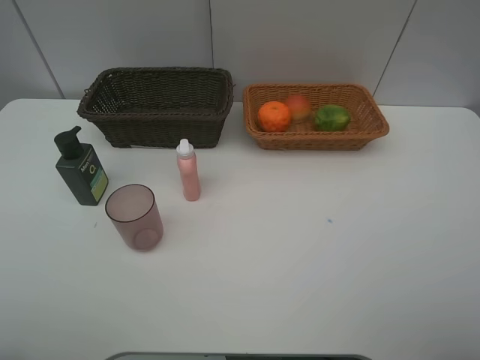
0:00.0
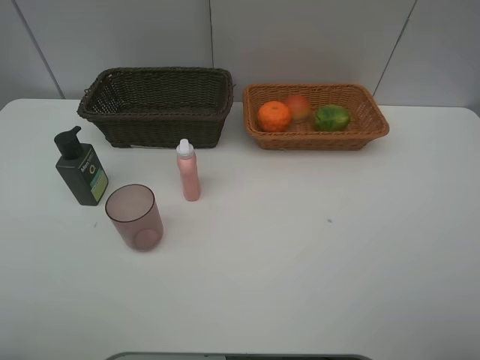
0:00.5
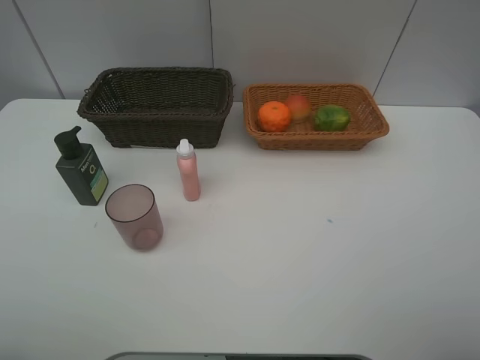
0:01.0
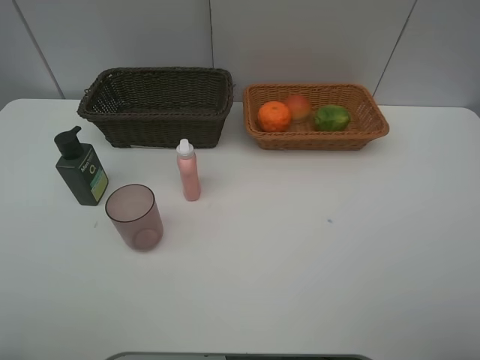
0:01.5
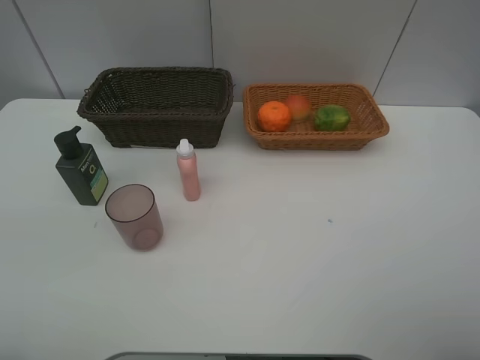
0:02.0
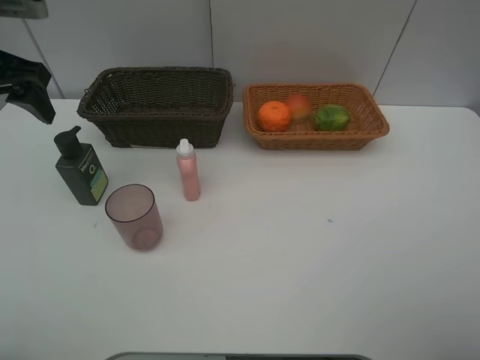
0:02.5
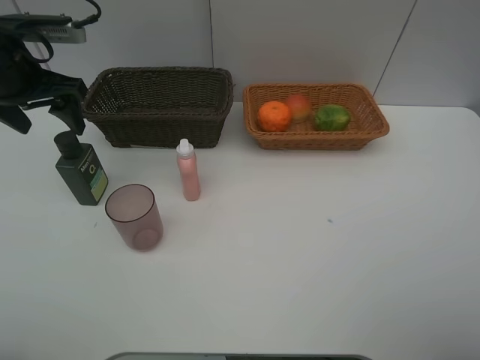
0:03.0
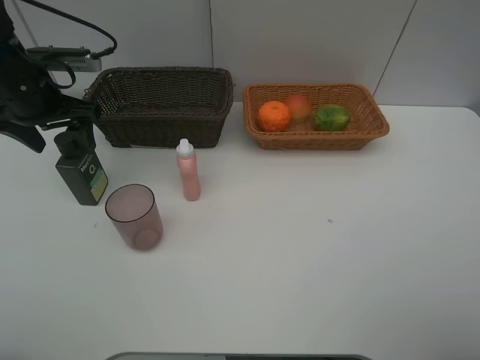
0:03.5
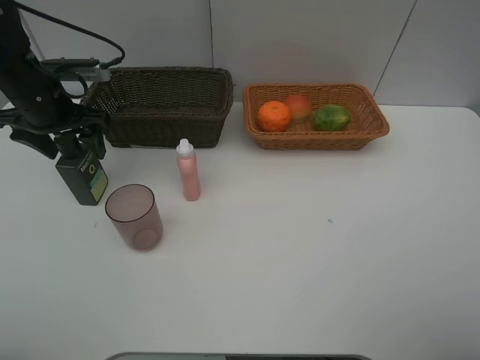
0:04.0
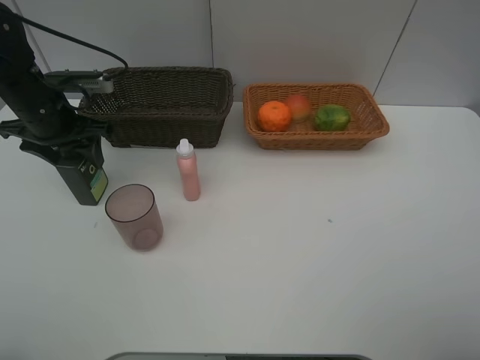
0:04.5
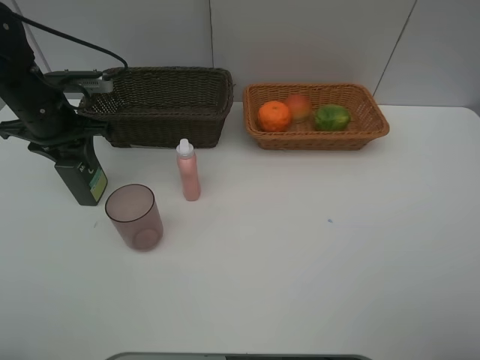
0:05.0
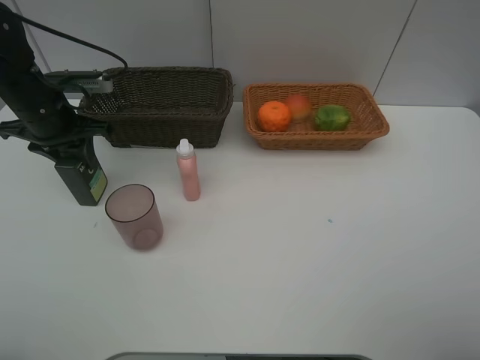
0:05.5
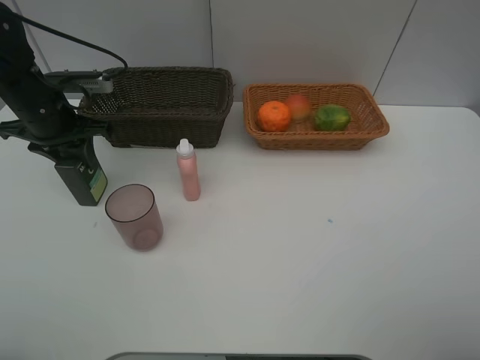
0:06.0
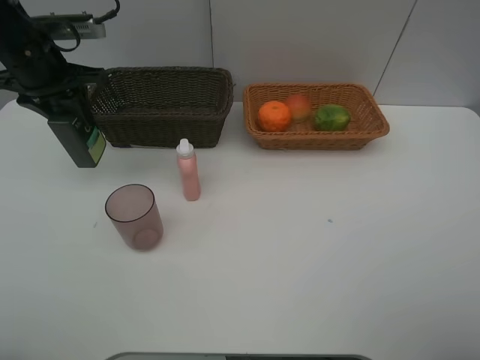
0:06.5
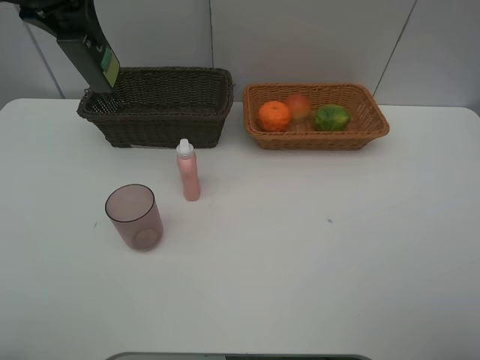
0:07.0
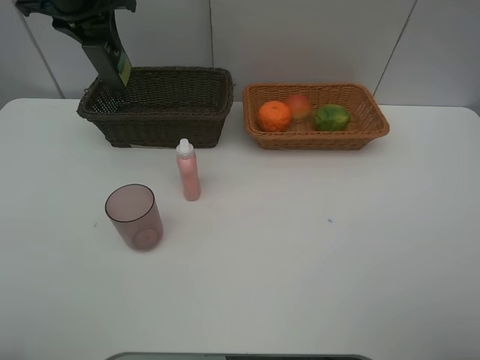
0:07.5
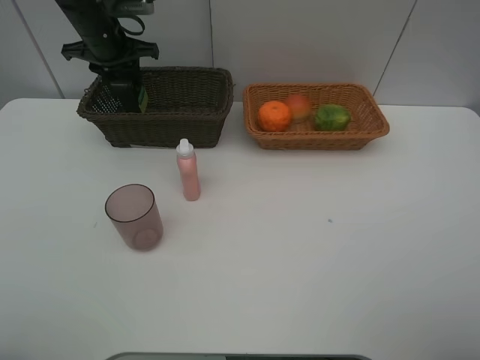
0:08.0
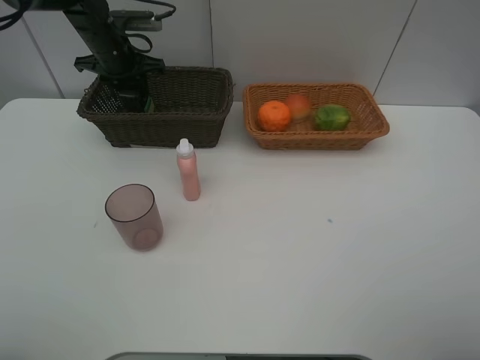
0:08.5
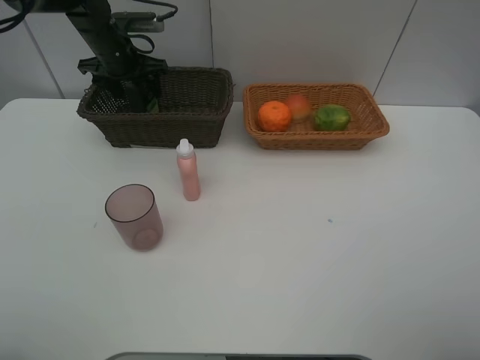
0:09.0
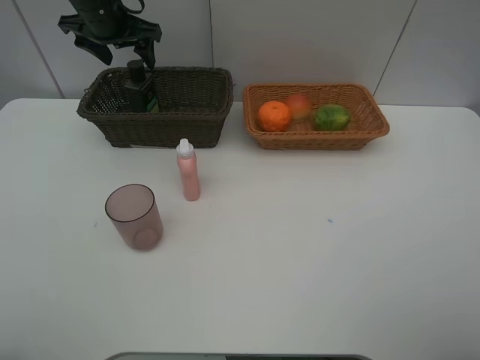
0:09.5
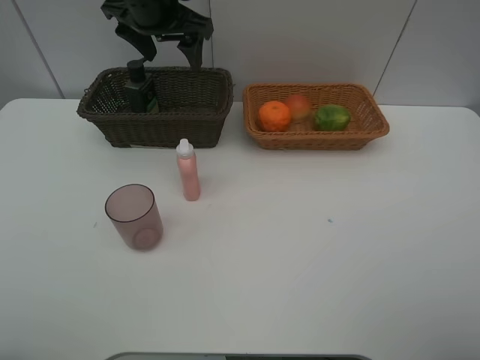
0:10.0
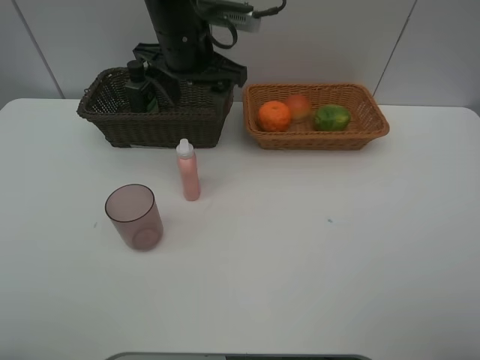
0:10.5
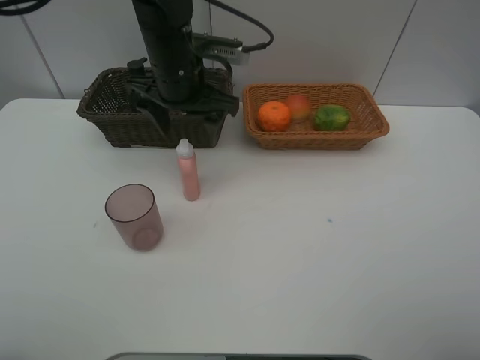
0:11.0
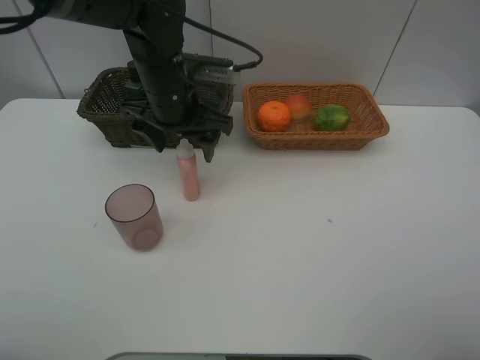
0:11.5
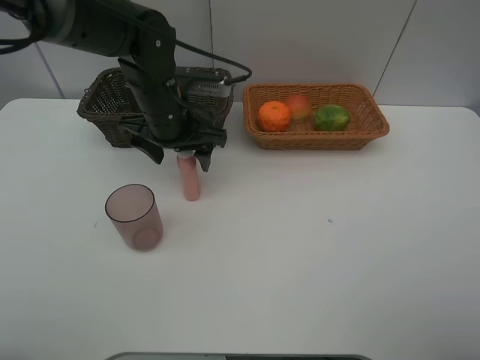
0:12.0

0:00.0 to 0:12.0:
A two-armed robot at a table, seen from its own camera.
Task of the whole recording: place multiple objects separately in different baskets.
0:02.0 to 0:04.0: The left gripper moves forward and downward, roughly 20 cm.
0:04.0 to 0:06.0: The left gripper closes.
0:06.0 to 0:08.0: The left gripper moves forward, some 15 cm, and moves some 15 cm upward and comes back.
0:08.0 to 0:10.0: The left gripper moves to the right, upward and backward, some 15 cm, and opens its fingers.
0:10.0 to 0:12.0: The left gripper heads downward and backward, covering roughly 15 cm.

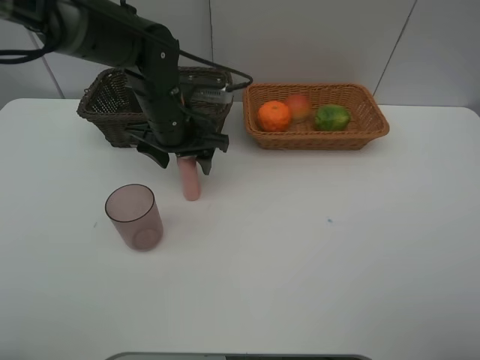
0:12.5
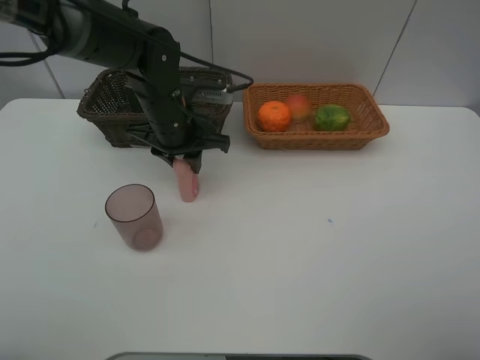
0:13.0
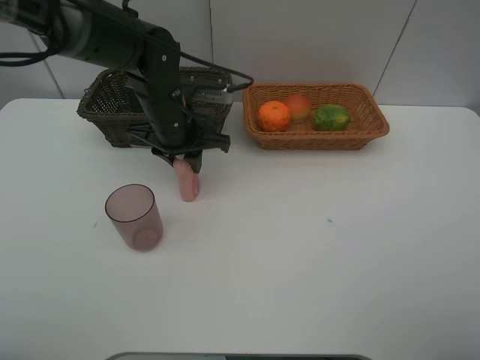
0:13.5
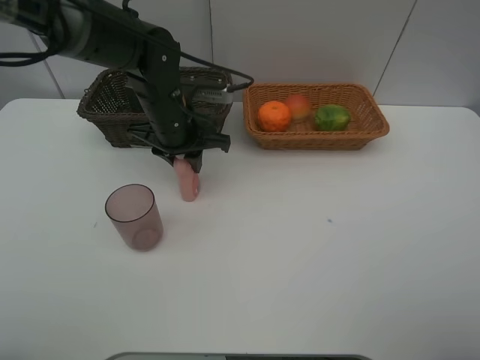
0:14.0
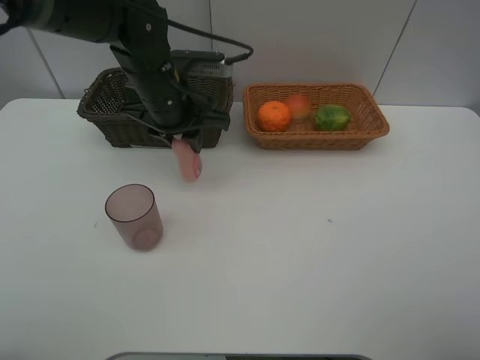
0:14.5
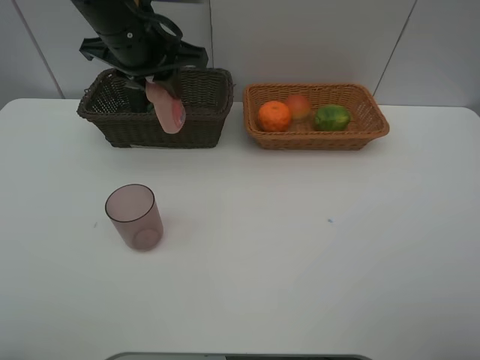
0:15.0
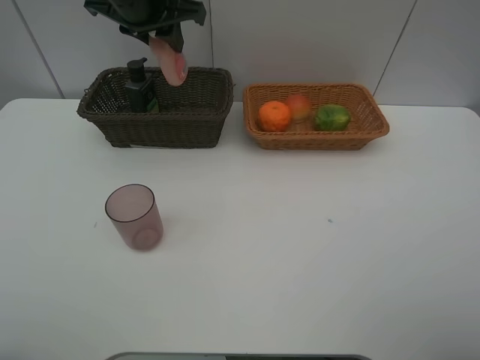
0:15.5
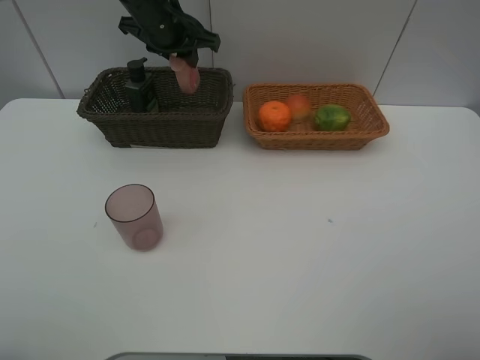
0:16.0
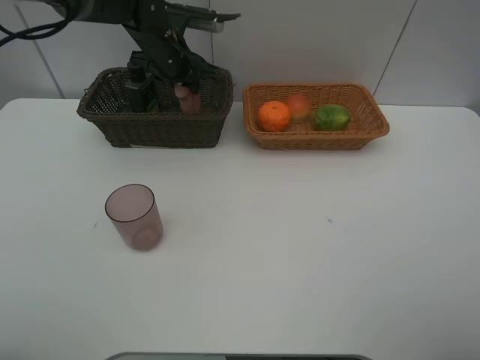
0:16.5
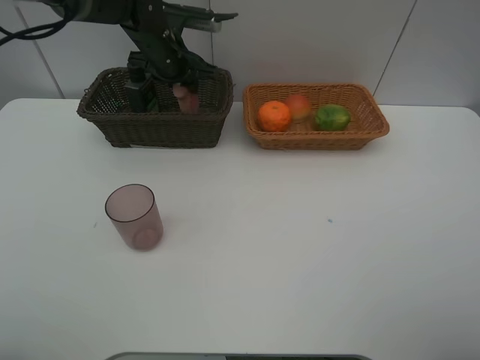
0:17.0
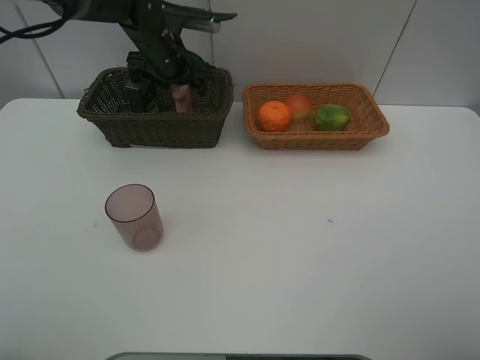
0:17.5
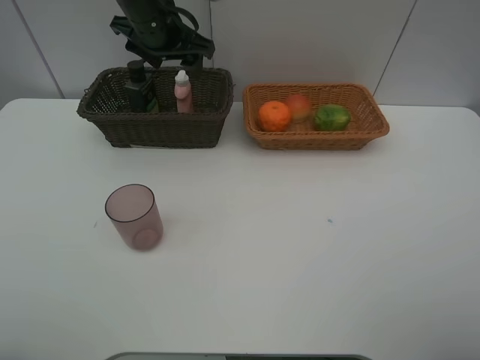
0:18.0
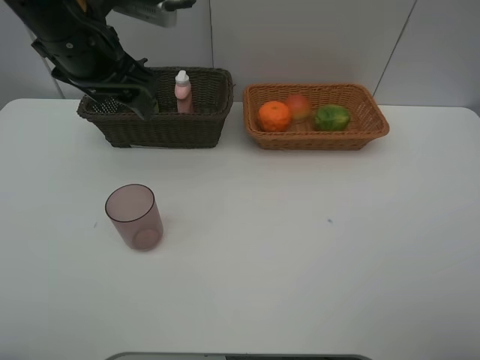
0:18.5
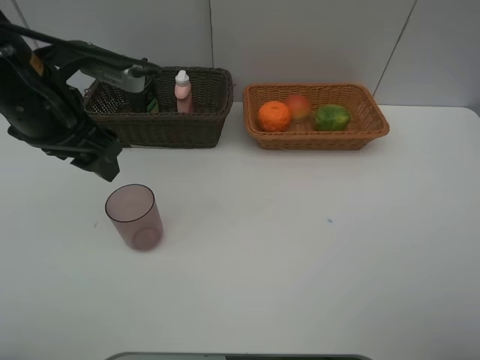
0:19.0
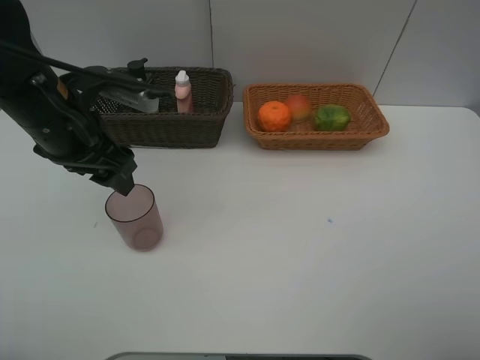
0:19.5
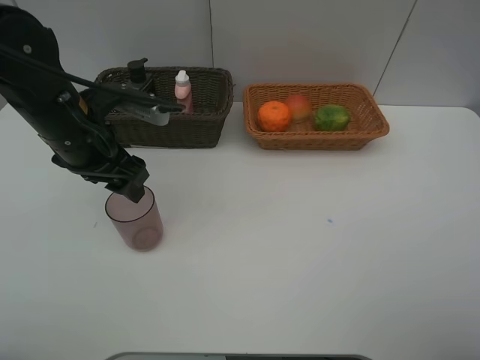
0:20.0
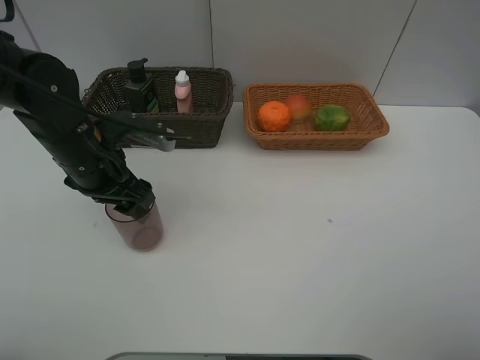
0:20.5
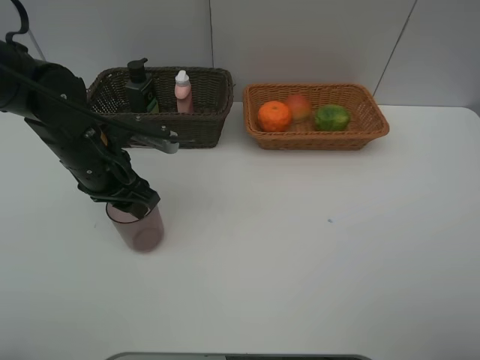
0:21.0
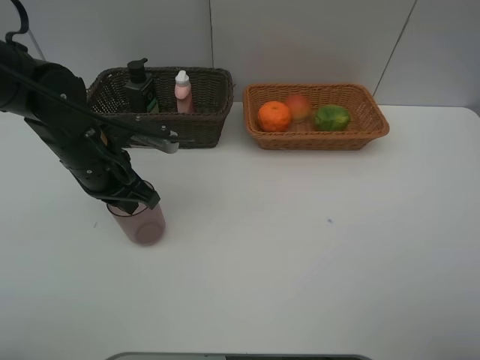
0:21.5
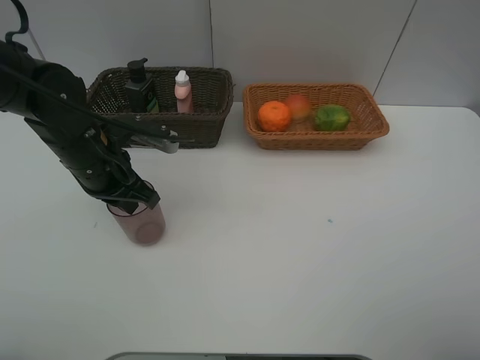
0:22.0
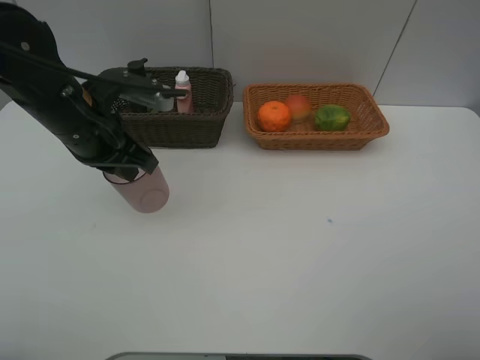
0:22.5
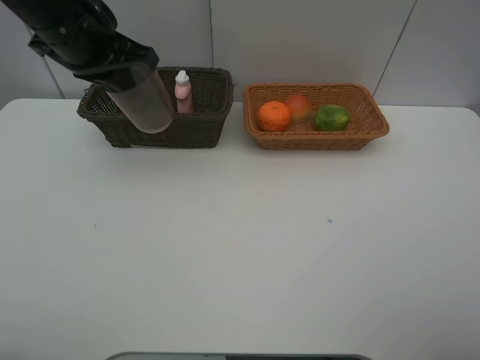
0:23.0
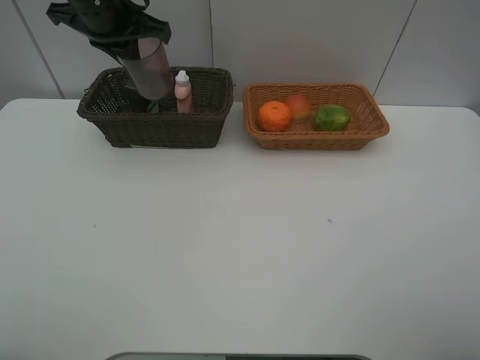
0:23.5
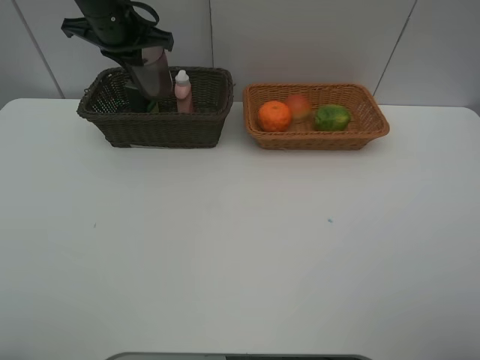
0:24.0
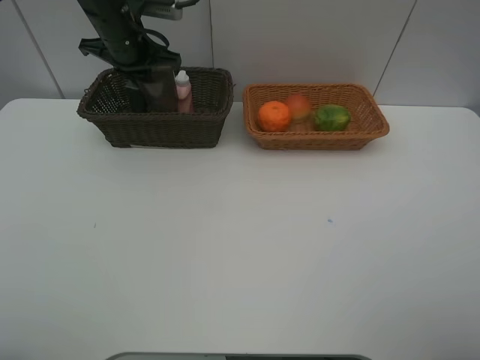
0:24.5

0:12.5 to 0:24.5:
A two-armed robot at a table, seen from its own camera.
Task of the whole recording: place multiple objects separately in different baskets.
0:12.5 to 0:14.5: The left gripper closes up.
0:14.5 to 0:16.5: The left gripper is displaced forward by approximately 10 cm.
0:16.5 to 0:18.5: The left gripper goes some 20 cm backward and upward, and opens up.
0:18.5 to 0:20.5: The left gripper is displaced downward by about 15 cm.
0:20.5 to 0:22.5: The left gripper heads upward, covering roughly 5 cm, and closes its fingers.
0:22.5 to 0:24.5: The left gripper travels forward by roughly 20 cm.

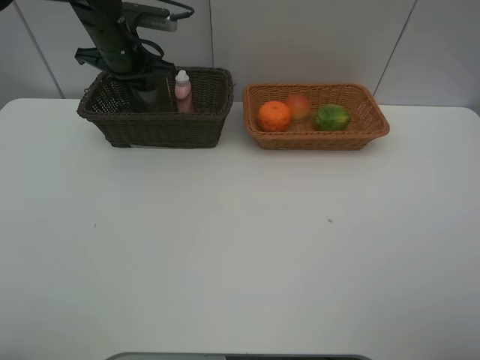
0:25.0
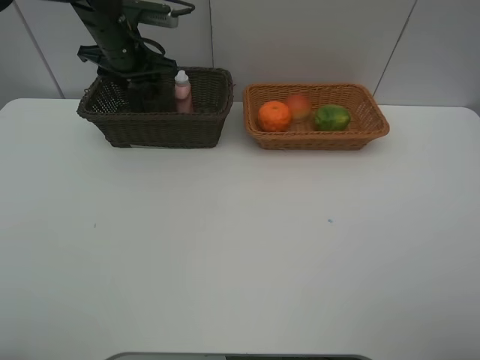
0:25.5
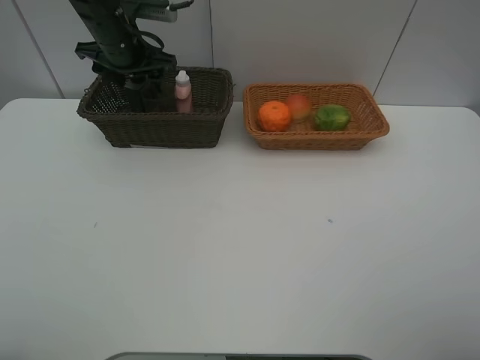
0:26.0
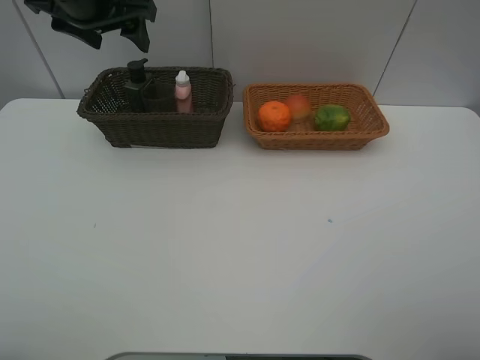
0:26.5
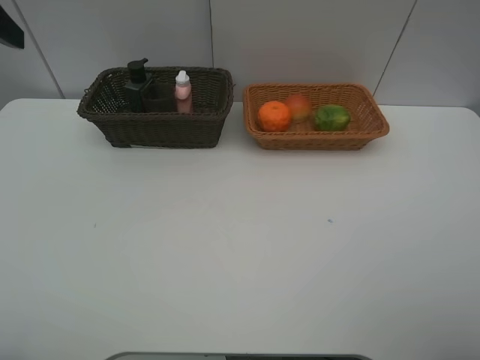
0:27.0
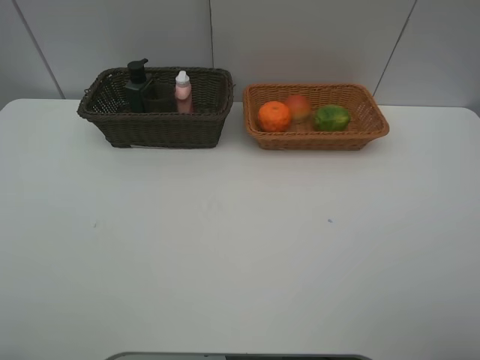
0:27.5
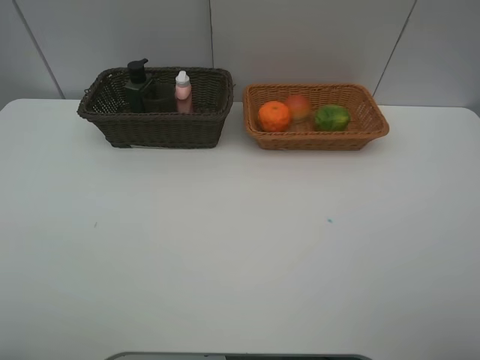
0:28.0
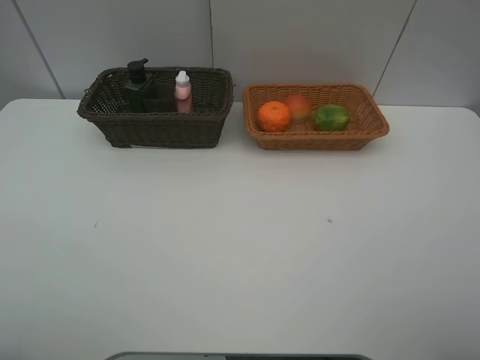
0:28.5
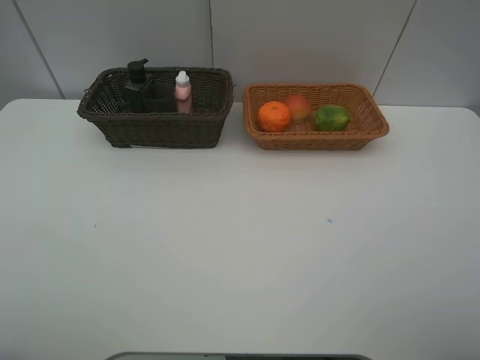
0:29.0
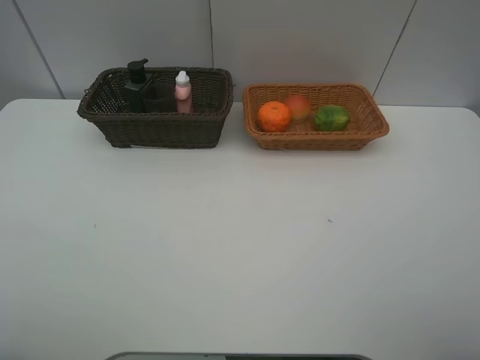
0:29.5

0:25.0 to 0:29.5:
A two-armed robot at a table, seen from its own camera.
Task of the whole recording: place multiple objects separately in different baskets.
0:25.0 to 0:27.0: The left gripper goes some 30 cm backward, upward and to the left, and opens up.
